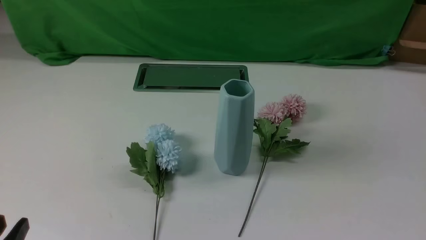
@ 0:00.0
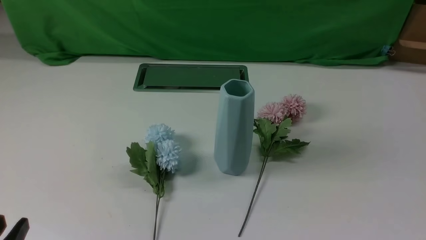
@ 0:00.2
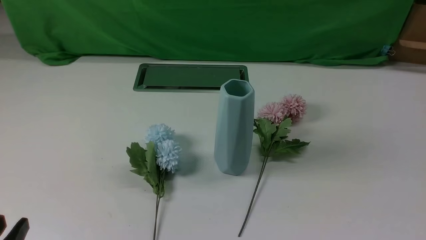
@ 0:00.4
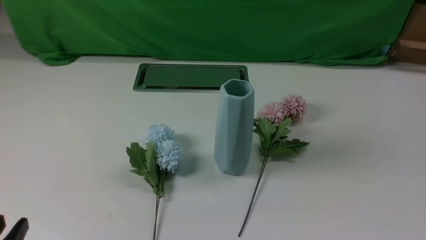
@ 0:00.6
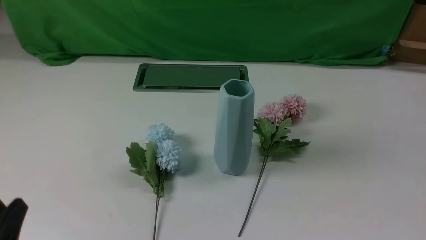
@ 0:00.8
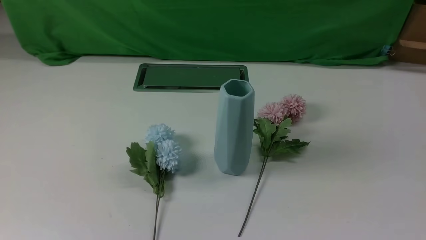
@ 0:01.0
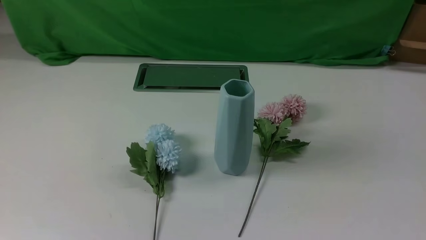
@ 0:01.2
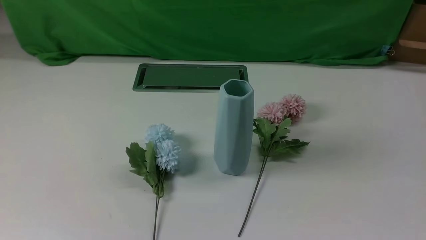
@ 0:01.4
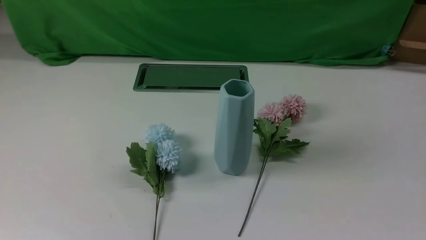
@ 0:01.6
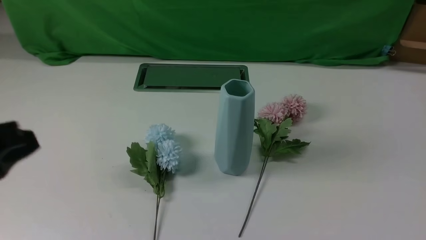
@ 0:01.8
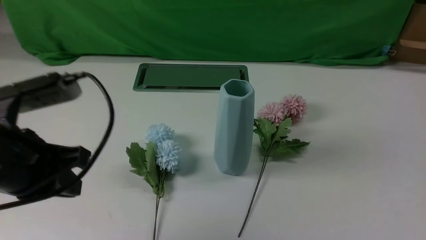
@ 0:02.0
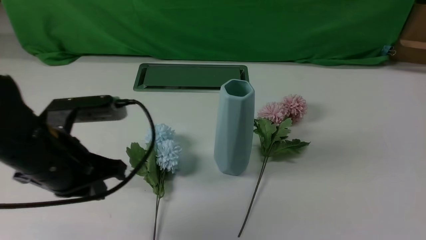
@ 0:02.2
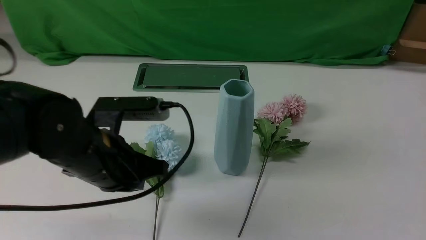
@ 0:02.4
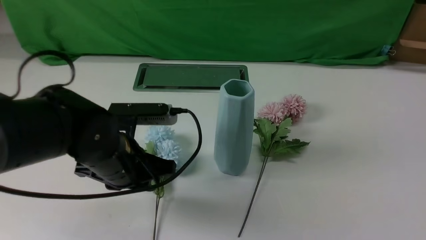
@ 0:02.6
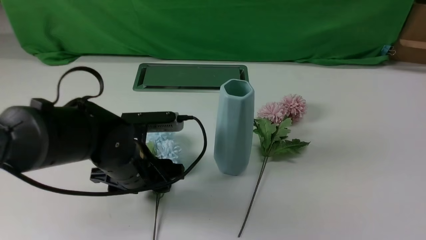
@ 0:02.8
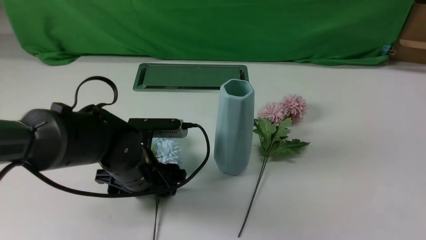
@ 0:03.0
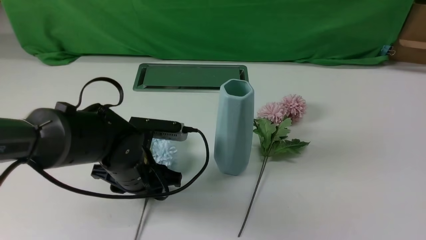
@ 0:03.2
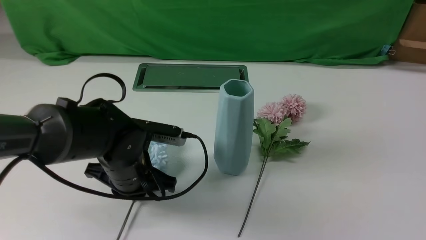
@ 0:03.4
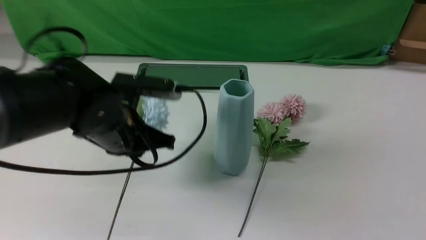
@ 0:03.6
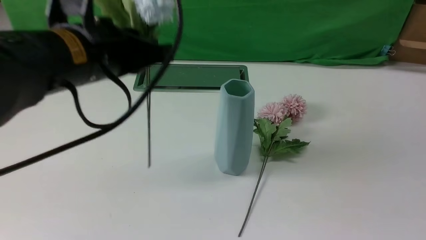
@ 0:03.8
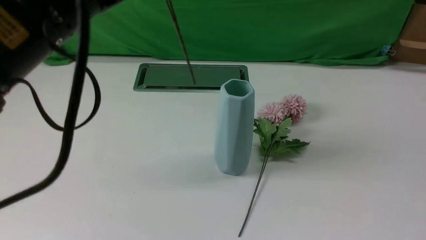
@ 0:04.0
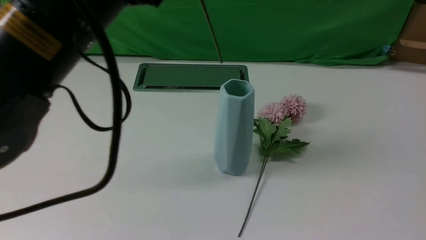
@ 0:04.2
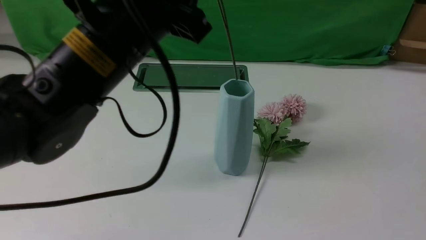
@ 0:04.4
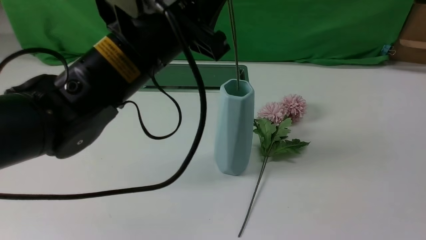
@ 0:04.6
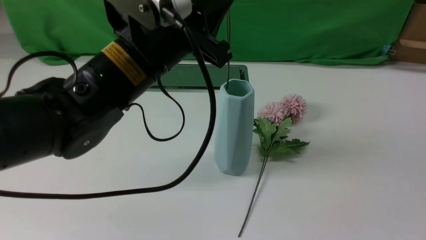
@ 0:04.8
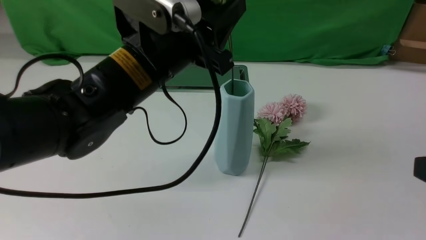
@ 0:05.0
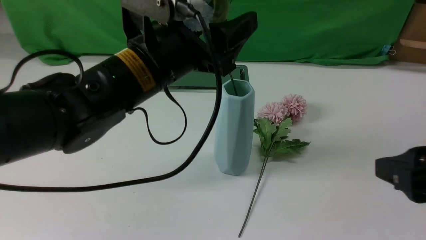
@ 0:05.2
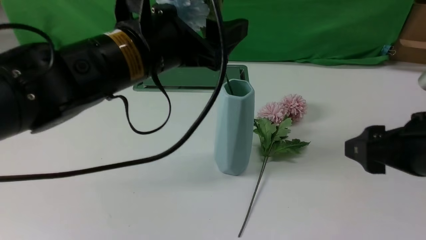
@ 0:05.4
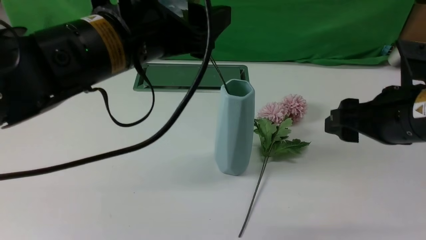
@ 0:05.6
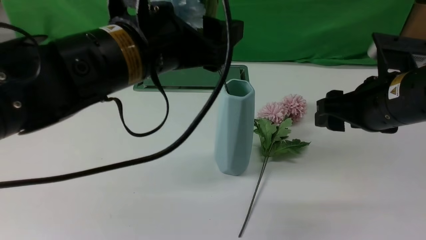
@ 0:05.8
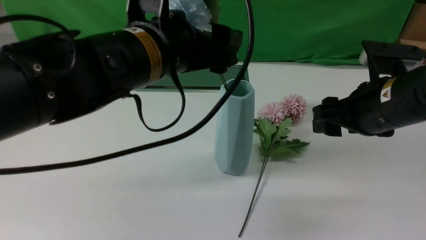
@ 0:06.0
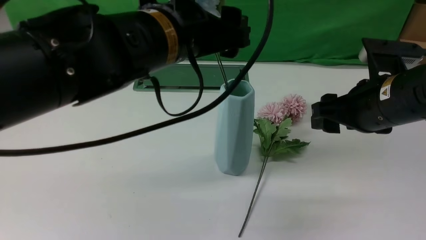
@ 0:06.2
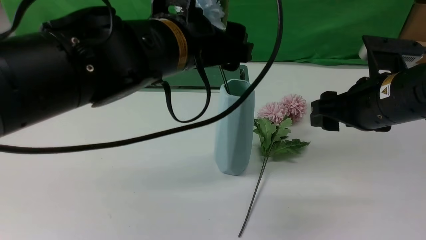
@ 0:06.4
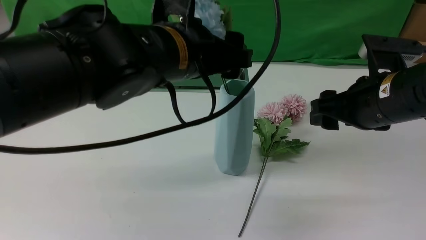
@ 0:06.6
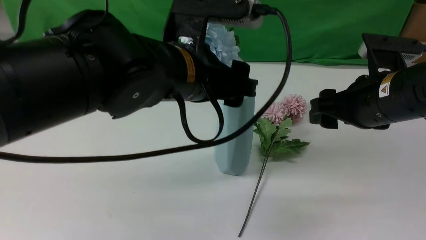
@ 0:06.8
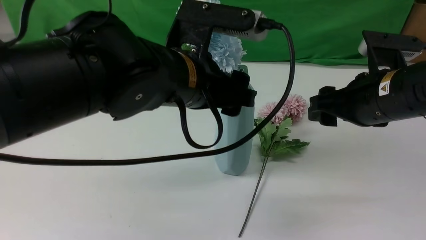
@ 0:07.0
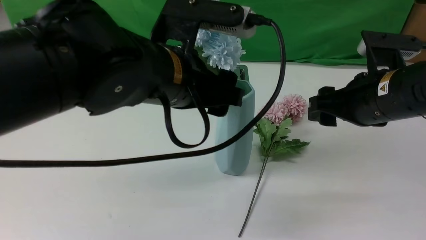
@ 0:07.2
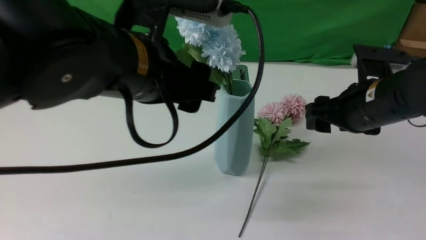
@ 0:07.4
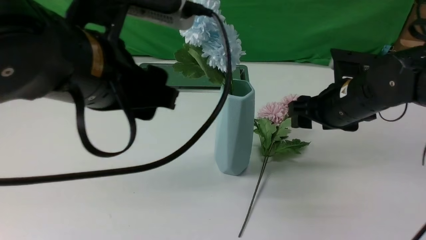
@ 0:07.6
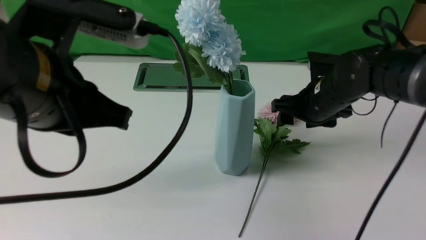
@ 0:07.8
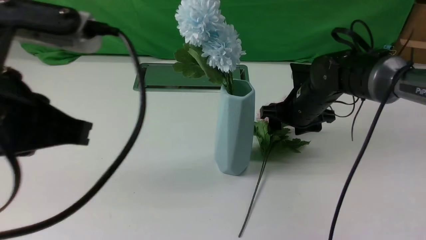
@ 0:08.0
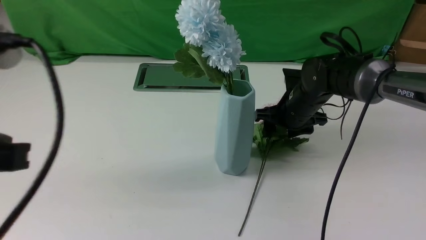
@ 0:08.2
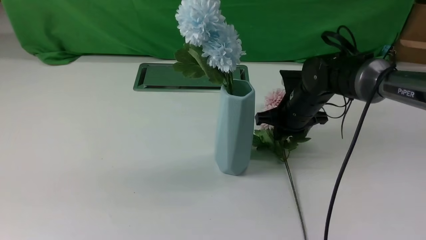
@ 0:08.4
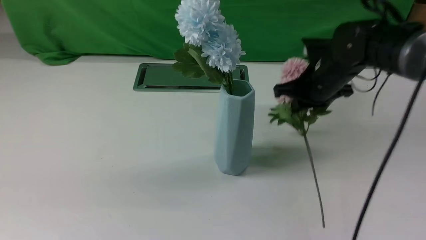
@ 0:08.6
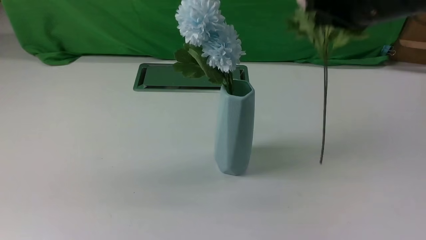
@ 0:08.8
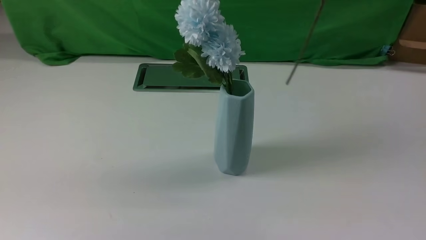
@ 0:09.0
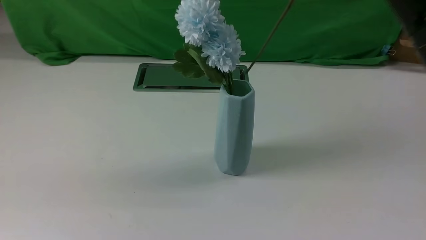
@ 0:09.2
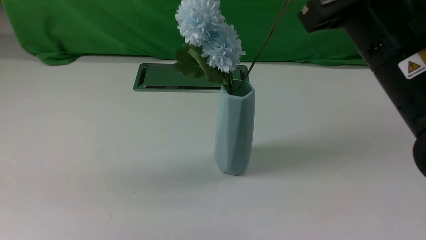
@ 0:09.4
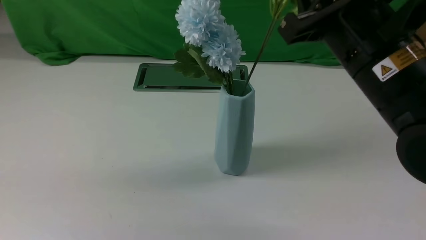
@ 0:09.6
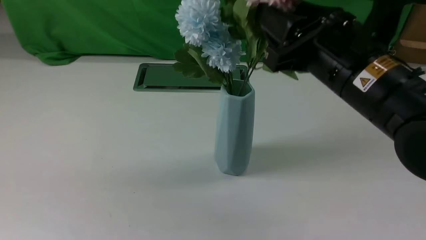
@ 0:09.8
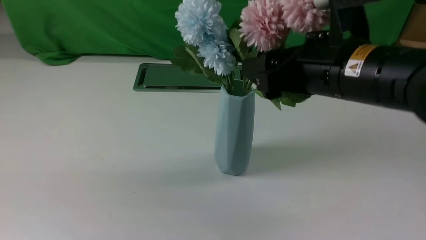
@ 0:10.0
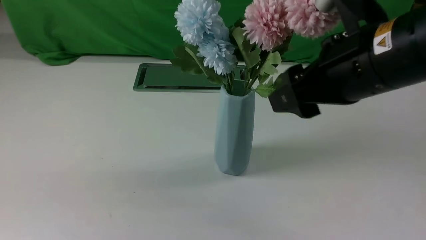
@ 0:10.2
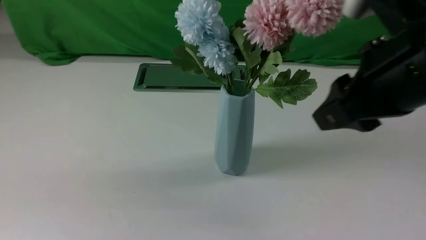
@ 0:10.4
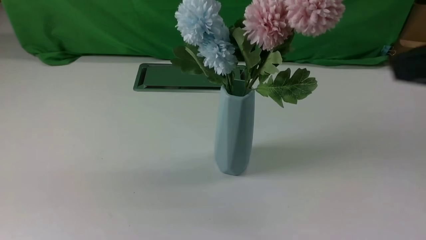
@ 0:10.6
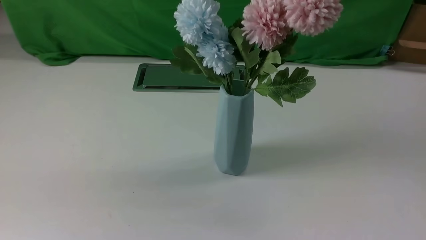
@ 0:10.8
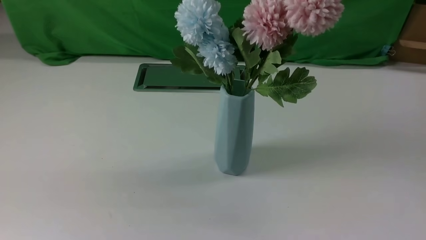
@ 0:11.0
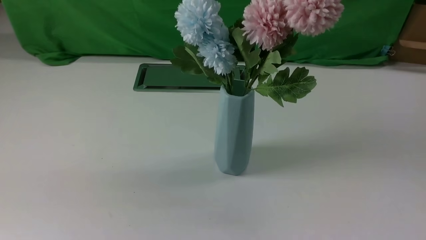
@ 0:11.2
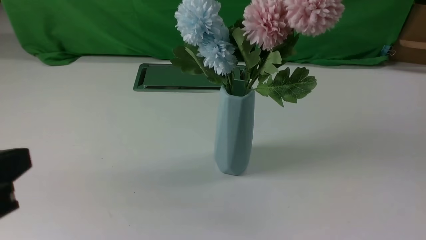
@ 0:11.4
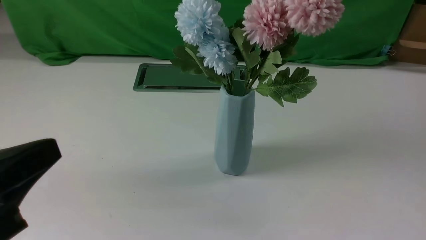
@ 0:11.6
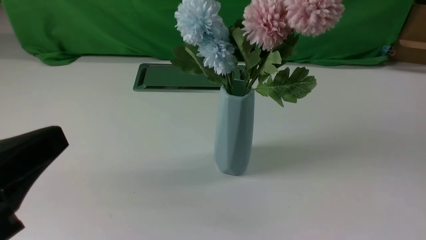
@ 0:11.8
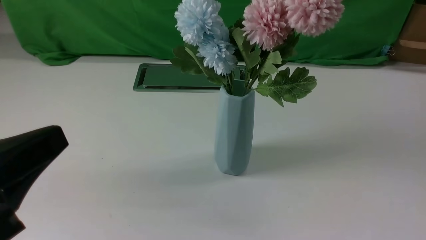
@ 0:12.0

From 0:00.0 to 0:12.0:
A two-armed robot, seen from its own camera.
Task of the whole recording: insert the flowers into the vase on the white table.
Step, from 0:00.0 to 0:03.2: use the left arm to grab a bunch of fresh flowers.
Step, from 0:03.6 to 0:07.0: use the left arm to insert the flowers into the vase.
Step, from 0:07.4 to 0:08.4: use the right arm to grab a bunch of fresh flowers.
Step, from 0:08.6 to 0:10.2: use the right arm to insert the flowers into the vase.
From 0:01.6 to 0:03.0: The left gripper travels forward, downward and to the right by about 30 cm, and opens its fingers. The right gripper is displaced upward by some 10 cm.
From 0:03.0 to 0:04.4: The left gripper shifts approximately 20 cm upward, and closes.
From 0:04.4 to 0:06.0: The left gripper opens its fingers; the right gripper moves forward, roughly 20 cm, and opens up.
From 0:06.0 to 0:07.6: The left gripper is displaced backward by roughly 5 cm; the right gripper goes roughly 10 cm forward and downward.
From 0:07.6 to 0:09.0: The left gripper moves backward and to the left, about 20 cm, and closes, while the right gripper travels upward by roughly 20 cm, and closes up.
From 0:09.0 to 0:10.4: The right gripper shifts some 10 cm backward, goes downward and returns, roughly 10 cm each way, and opens up.
From 0:10.4 to 0:12.0: The left gripper is displaced downward by roughly 5 cm. The right gripper goes some 25 cm backward, to the right and downward.

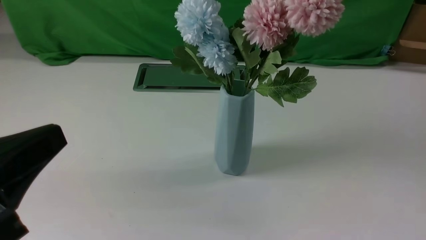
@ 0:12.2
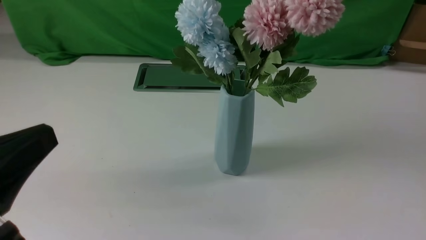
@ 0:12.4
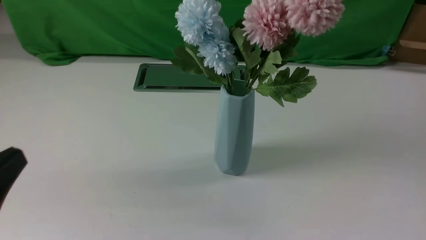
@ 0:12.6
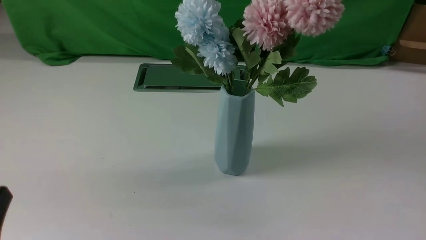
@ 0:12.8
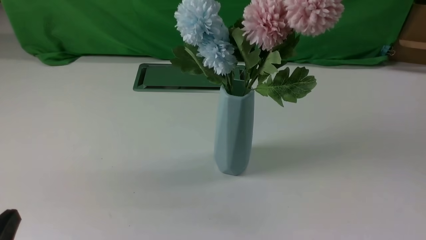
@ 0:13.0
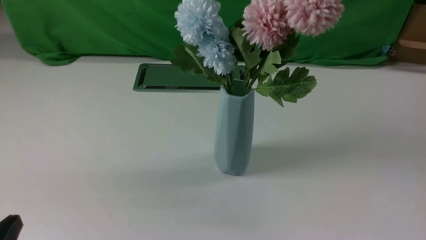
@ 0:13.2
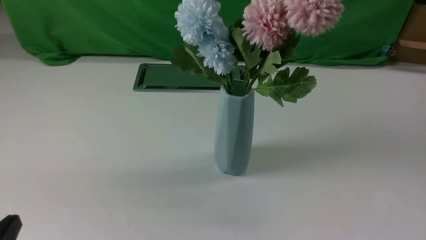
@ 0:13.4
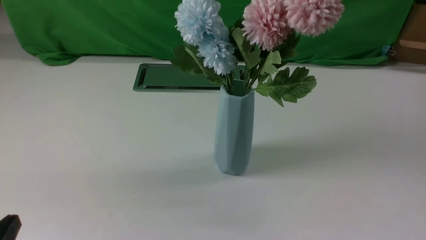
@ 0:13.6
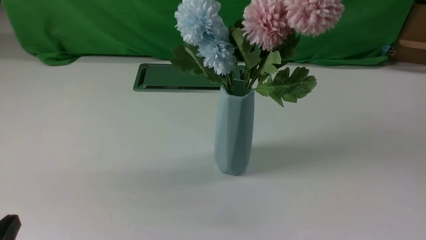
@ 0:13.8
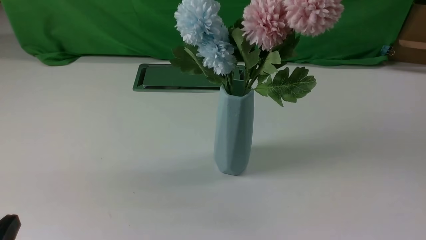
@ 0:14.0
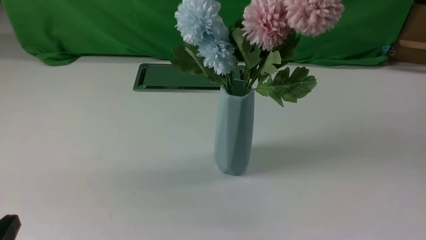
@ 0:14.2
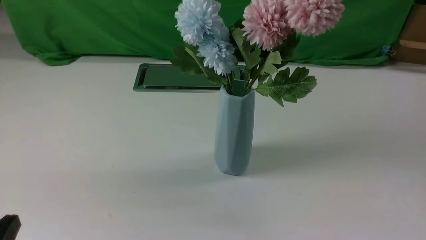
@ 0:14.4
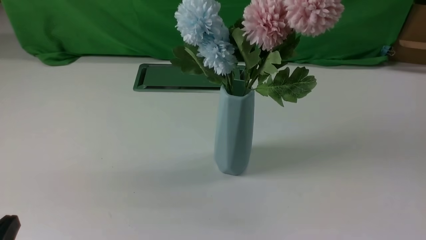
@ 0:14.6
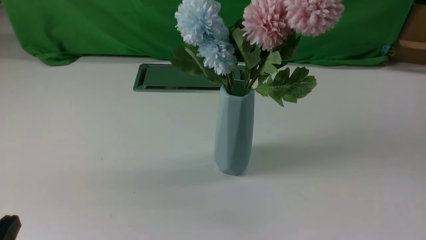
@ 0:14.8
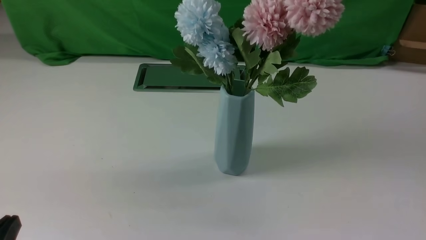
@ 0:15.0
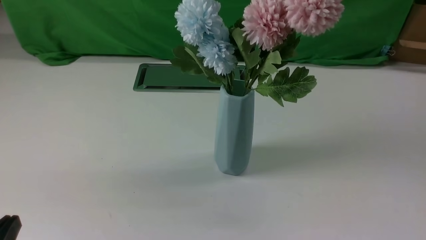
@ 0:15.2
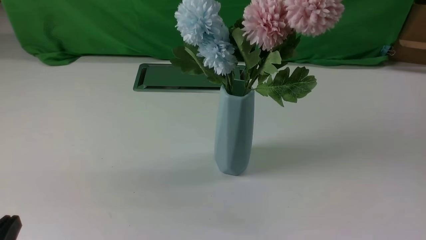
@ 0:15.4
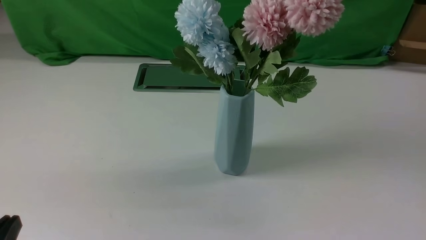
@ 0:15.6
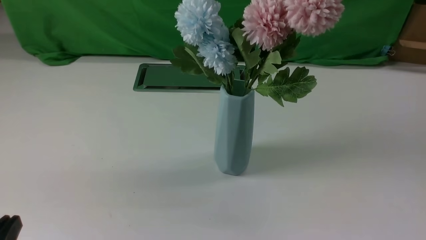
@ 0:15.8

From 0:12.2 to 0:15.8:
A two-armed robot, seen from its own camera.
Task of the whole recording: insert the flowers into the vase on the white table.
From 0:12.2 to 0:14.0: The left gripper heads downward, covering approximately 15 cm.
